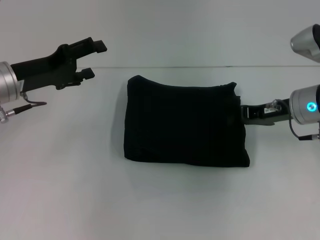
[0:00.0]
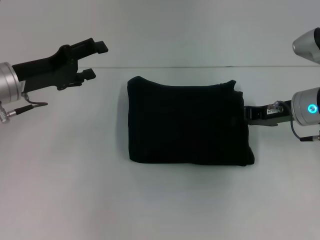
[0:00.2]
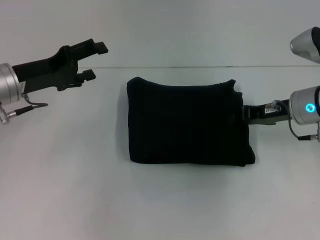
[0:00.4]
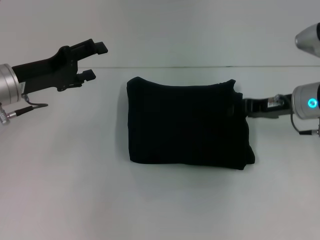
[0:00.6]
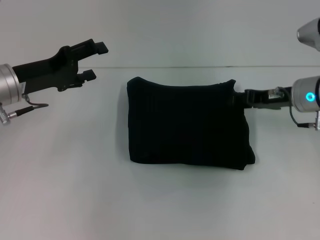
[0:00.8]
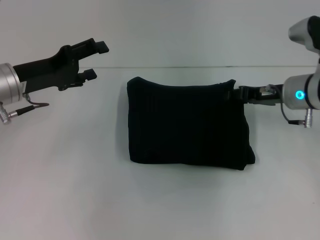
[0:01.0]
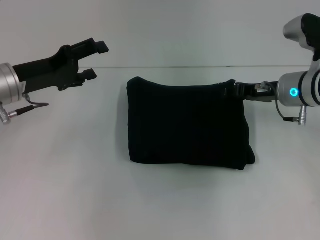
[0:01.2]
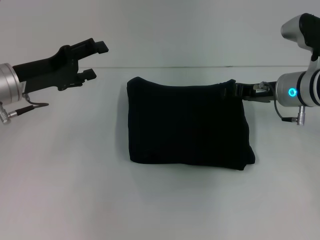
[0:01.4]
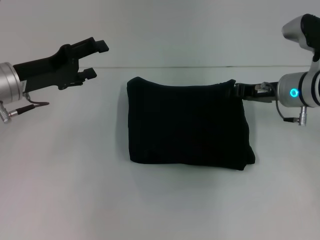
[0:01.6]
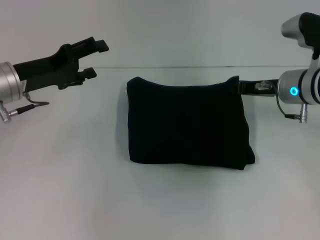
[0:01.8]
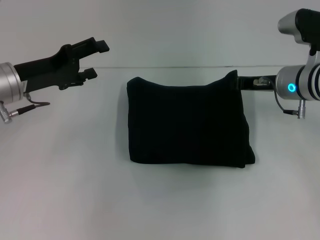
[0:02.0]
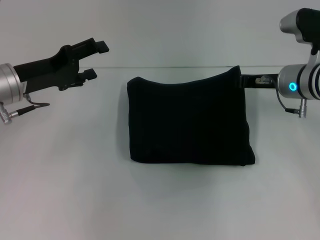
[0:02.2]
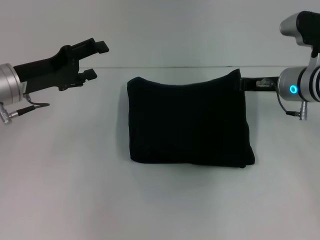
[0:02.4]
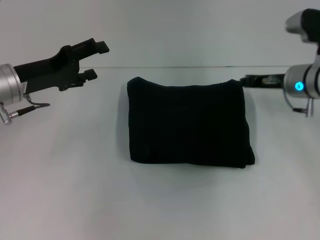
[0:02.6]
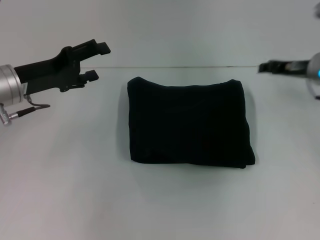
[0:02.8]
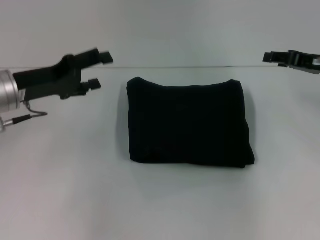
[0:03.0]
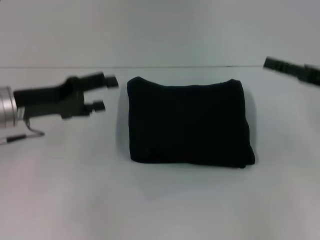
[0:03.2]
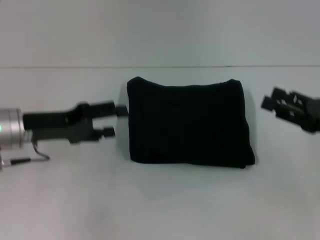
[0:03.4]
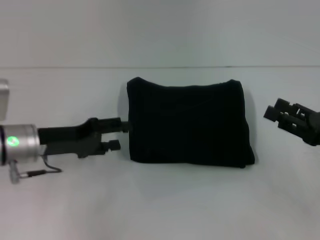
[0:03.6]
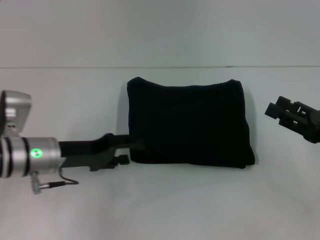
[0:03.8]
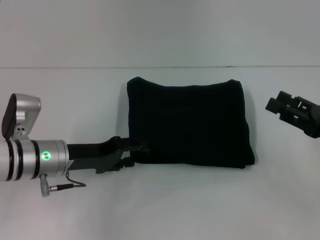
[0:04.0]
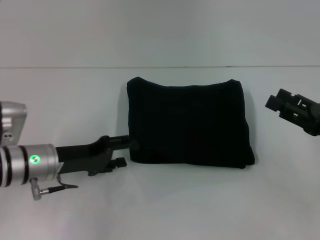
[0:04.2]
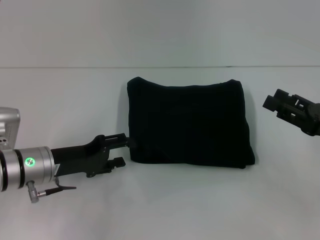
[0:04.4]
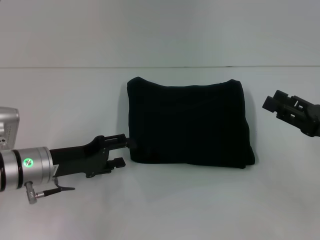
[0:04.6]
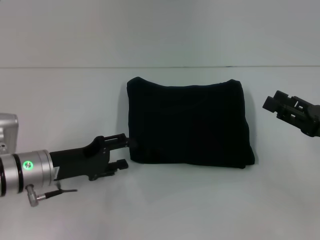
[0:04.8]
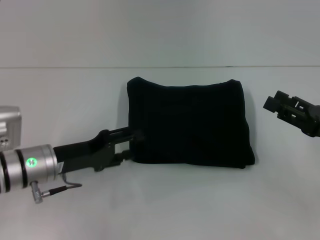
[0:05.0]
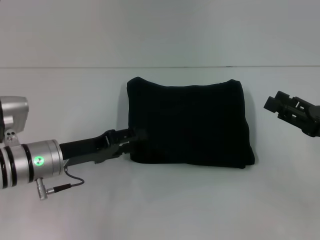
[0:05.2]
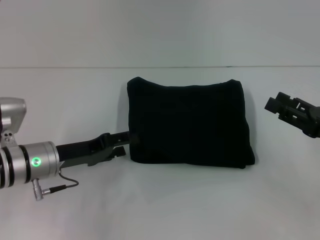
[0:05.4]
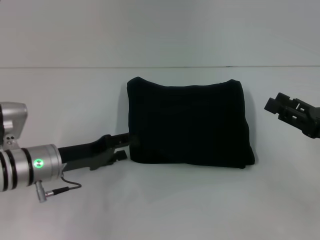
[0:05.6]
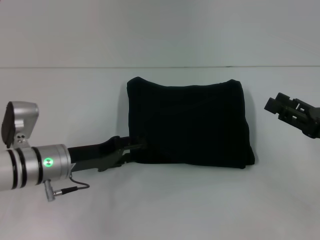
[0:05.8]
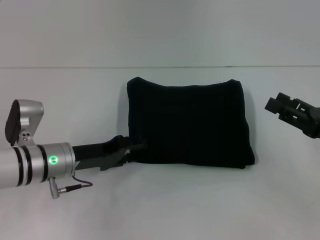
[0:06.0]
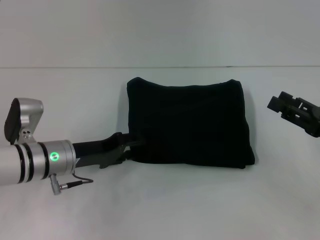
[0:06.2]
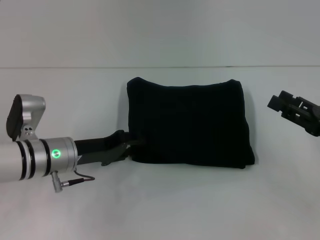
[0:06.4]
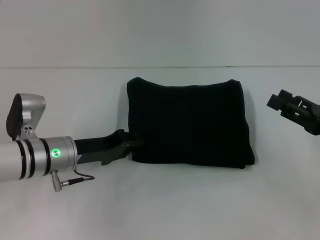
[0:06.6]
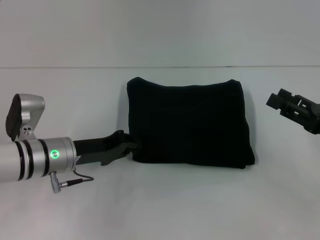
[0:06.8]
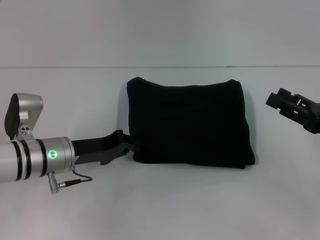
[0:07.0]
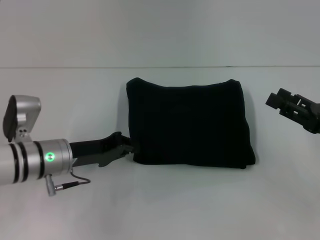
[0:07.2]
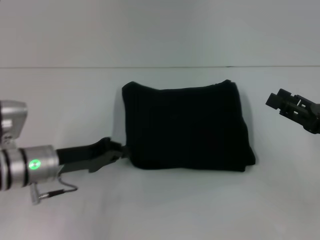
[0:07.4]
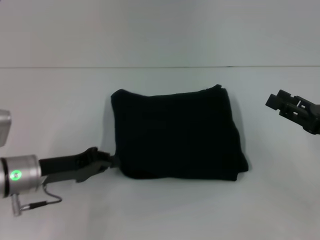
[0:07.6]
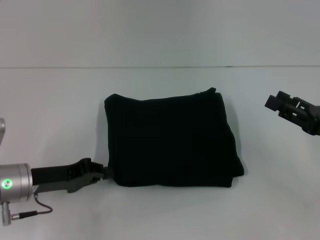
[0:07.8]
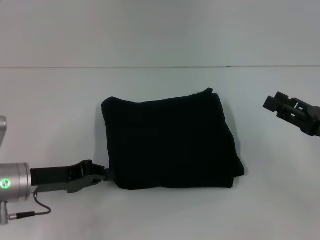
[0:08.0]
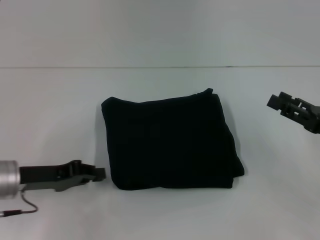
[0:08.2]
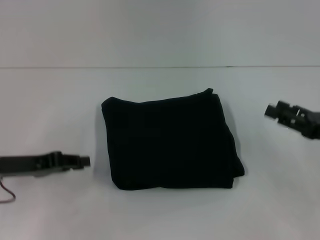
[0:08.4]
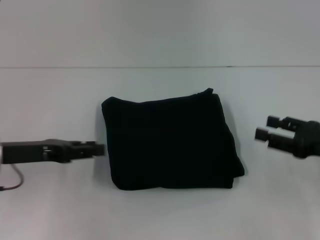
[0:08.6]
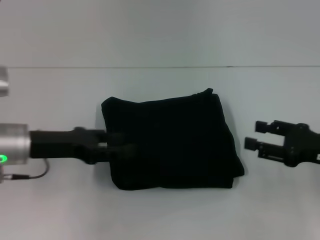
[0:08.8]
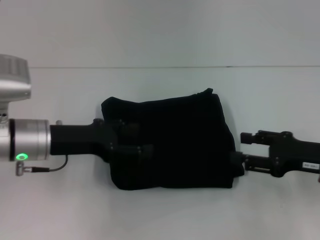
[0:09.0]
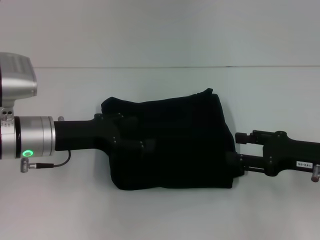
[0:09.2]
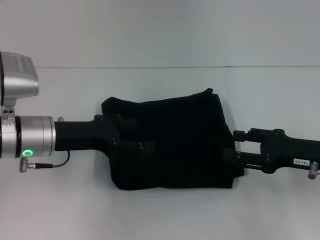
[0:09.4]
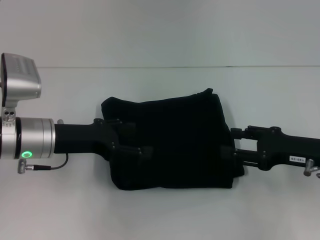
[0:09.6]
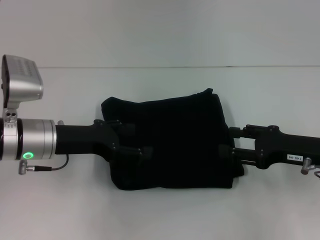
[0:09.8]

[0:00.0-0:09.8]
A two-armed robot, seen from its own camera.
0:00.0 to 0:01.4: The right gripper opens its fingers.
0:01.4 to 0:02.8: The right gripper changes place by approximately 5 cm.
0:02.8 to 0:04.2: The left gripper goes some 10 cm downward and backward; the right gripper heads backward, covering roughly 15 cm, and opens.
0:04.2 to 0:05.6: The grippers make only small movements.
0:05.6 to 0:07.0: The left gripper closes its fingers.
0:07.0 to 0:08.4: The left gripper goes approximately 10 cm to the left.
0:08.4 to 0:09.8: The right gripper travels to the left by roughly 5 cm. Meanwhile the left gripper goes about 10 cm to the right, and opens.

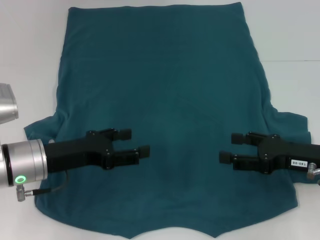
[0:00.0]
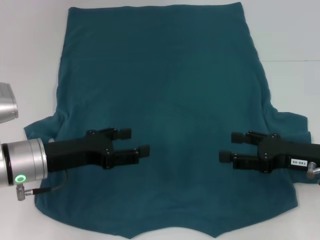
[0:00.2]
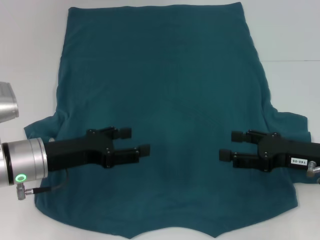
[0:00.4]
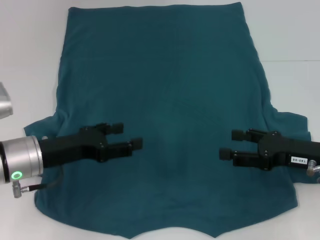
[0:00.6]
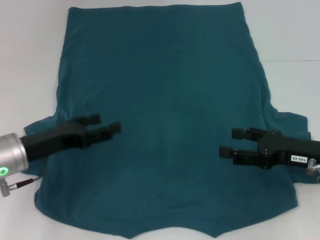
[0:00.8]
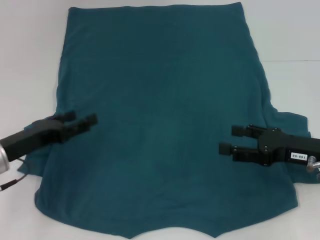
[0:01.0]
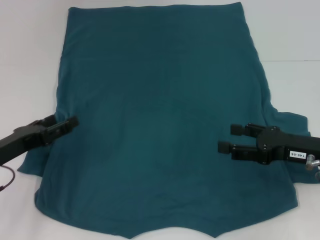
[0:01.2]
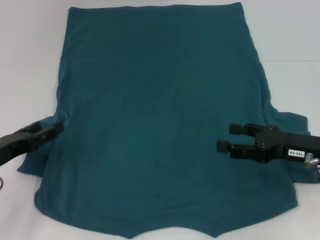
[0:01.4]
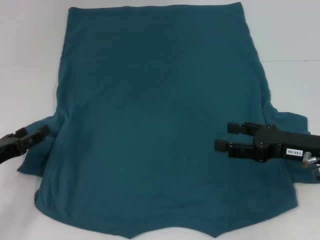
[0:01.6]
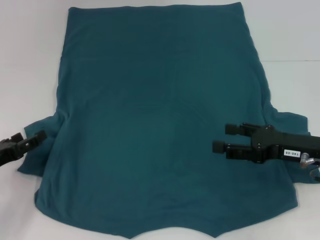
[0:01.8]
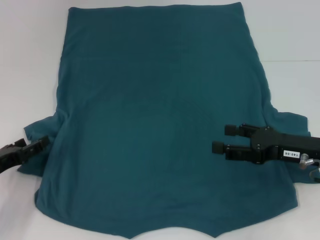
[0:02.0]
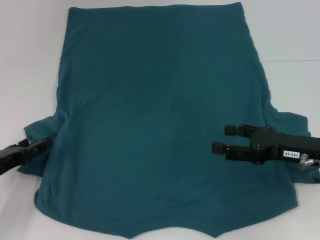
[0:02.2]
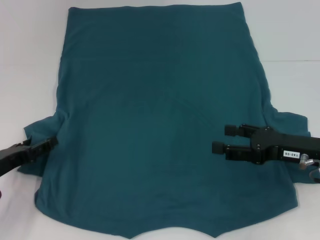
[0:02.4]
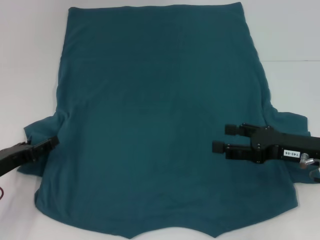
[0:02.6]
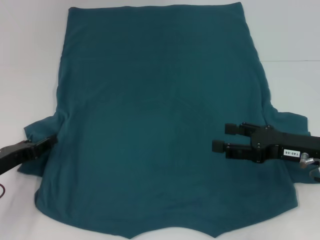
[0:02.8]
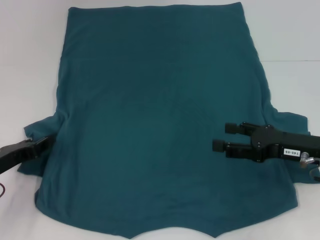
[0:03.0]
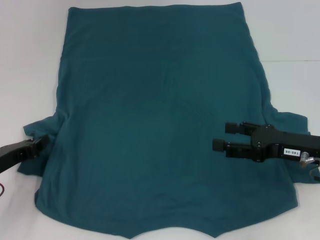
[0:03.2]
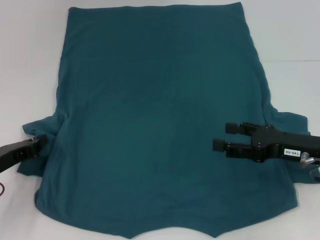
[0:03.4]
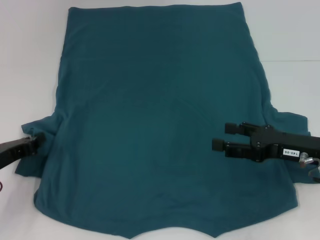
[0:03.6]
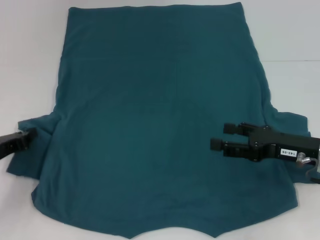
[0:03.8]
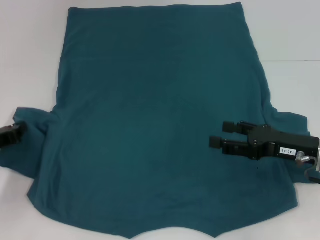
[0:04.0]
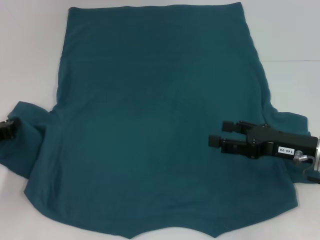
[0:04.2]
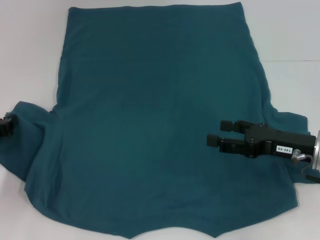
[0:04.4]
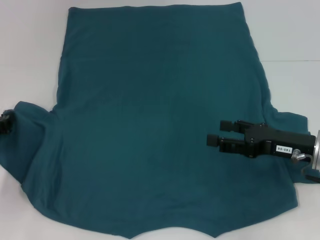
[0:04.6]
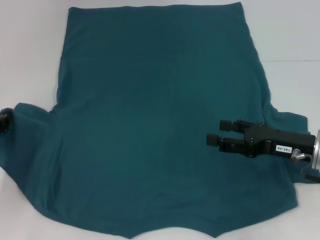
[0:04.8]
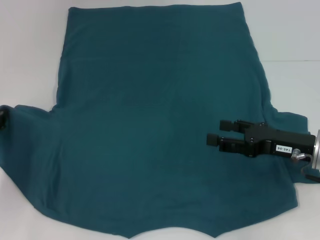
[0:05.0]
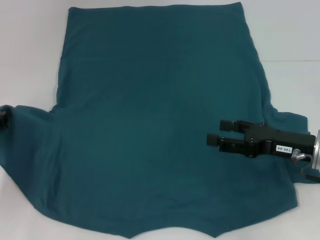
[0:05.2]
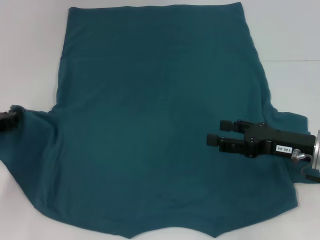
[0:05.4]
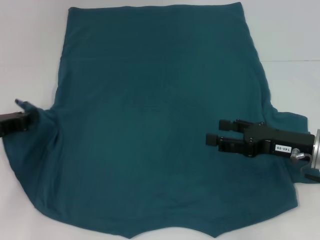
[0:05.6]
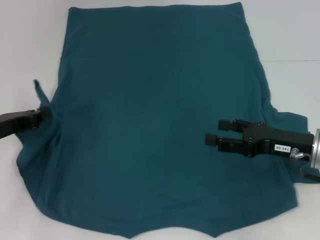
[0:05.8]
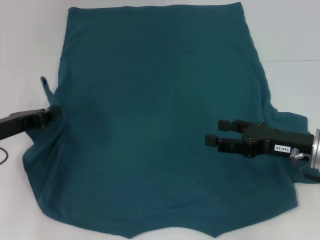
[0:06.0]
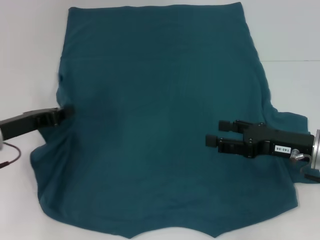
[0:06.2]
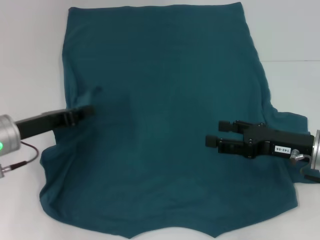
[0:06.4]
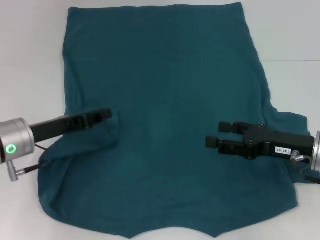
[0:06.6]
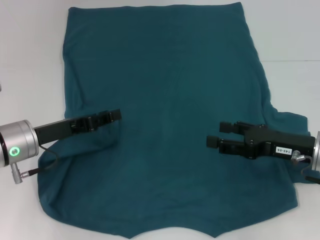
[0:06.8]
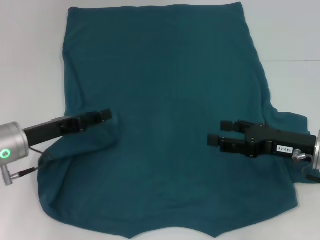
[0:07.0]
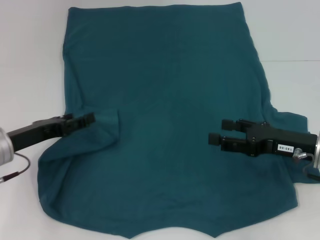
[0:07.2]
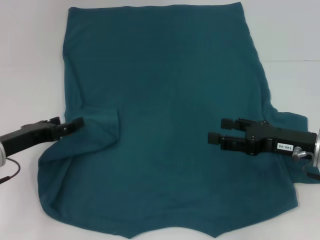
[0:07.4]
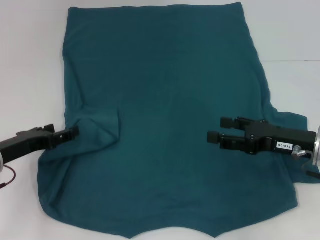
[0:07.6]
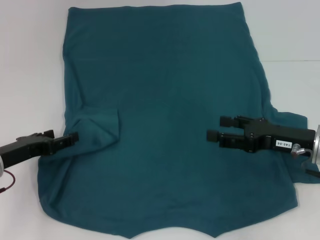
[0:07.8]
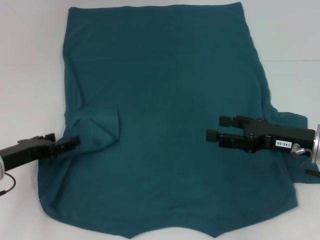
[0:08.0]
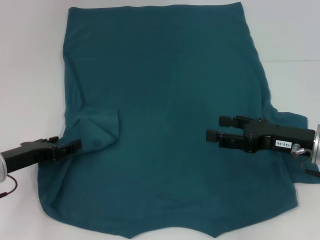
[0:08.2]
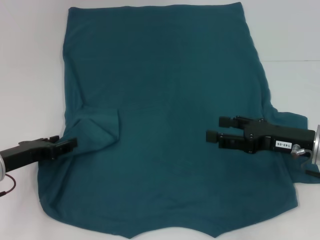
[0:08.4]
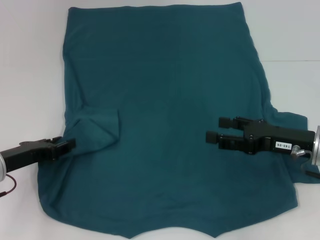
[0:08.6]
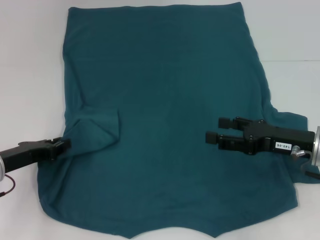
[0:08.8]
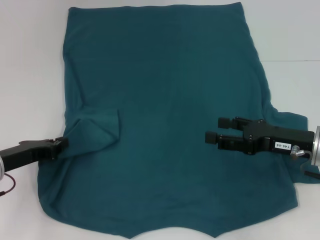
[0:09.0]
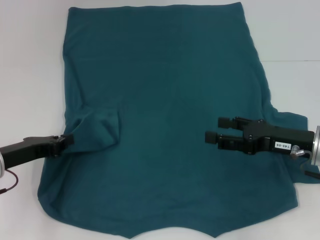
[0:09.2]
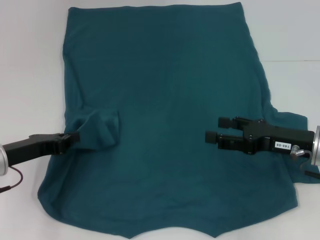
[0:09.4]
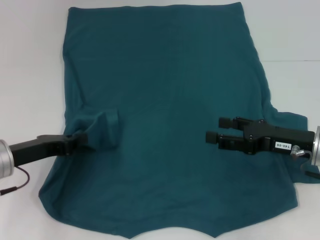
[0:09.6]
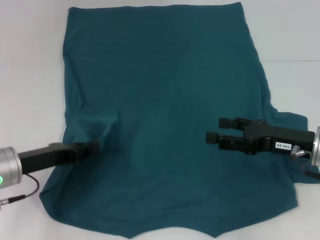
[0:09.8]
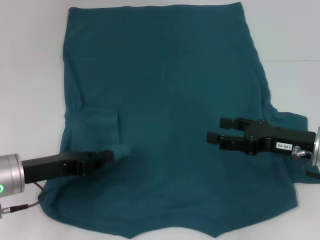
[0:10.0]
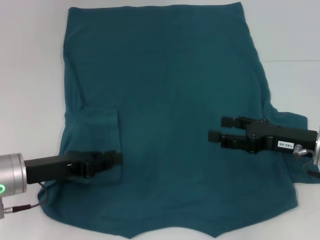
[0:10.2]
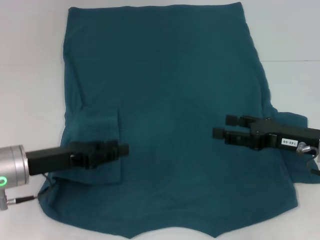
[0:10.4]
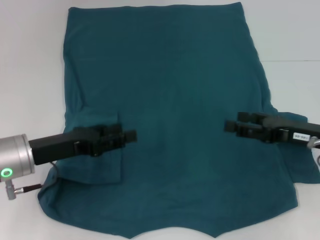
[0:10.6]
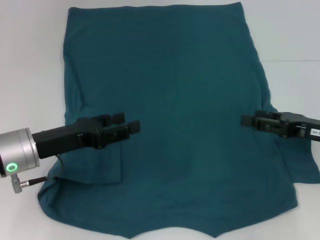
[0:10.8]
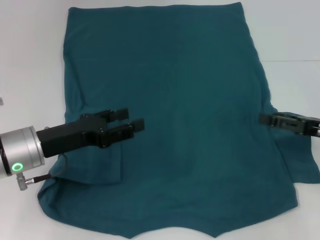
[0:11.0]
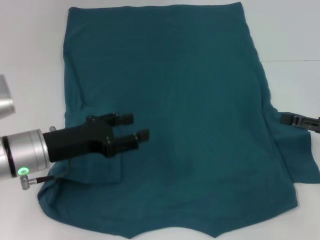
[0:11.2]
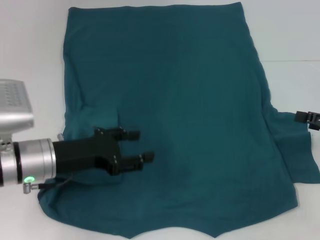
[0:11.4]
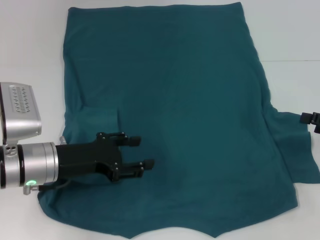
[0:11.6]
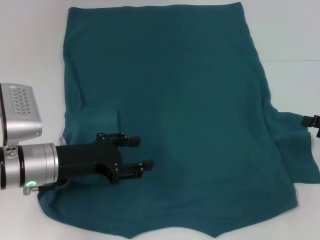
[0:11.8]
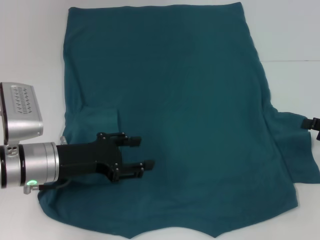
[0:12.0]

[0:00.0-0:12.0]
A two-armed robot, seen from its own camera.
Step, 0:00.0 to 0:10.0: Fold the bottom left sleeve with your left hand.
0:00.0 to 0:01.6: The left gripper travels to the left by about 10 cm.
0:01.6 to 0:03.0: The left gripper closes.
0:03.0 to 0:04.4: The left gripper closes.
0:04.4 to 0:06.0: The left gripper shifts by some 5 cm.
0:06.0 to 0:07.6: The left gripper opens up.
0:07.6 to 0:09.0: The left gripper closes.
0:09.0 to 0:10.4: The left gripper moves about 5 cm.
0:10.4 to 0:12.0: The right gripper shifts approximately 10 cm to the right. Meanwhile the left gripper opens.
